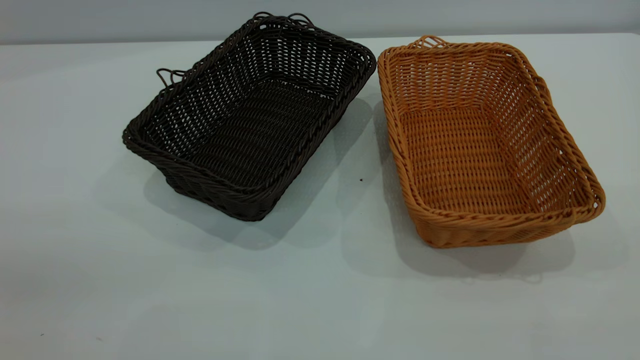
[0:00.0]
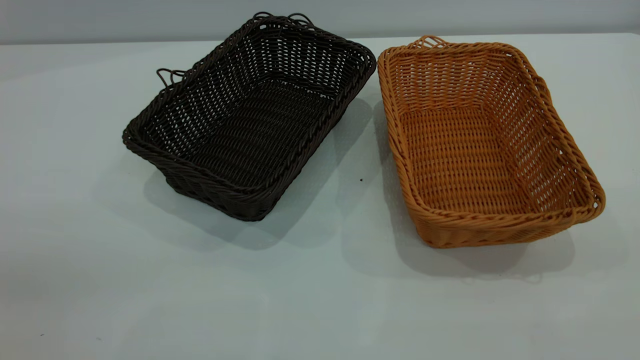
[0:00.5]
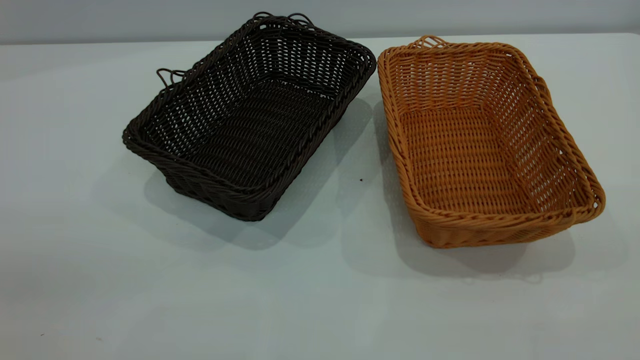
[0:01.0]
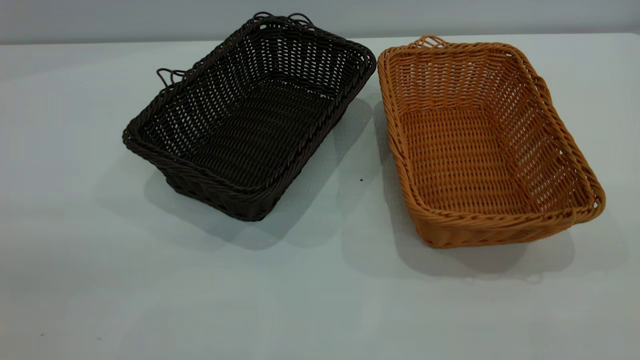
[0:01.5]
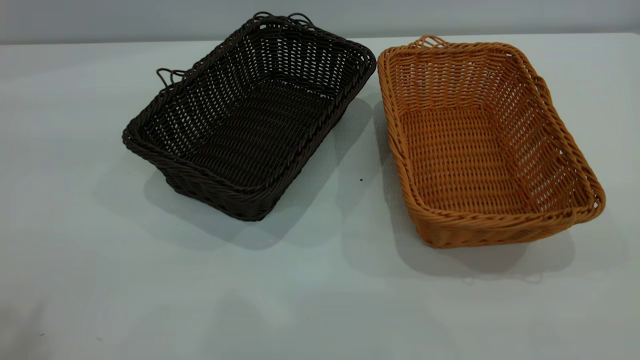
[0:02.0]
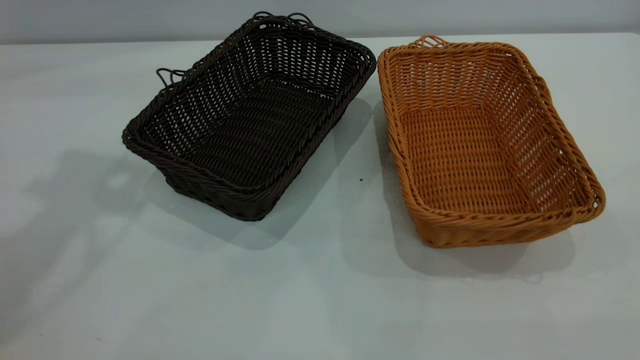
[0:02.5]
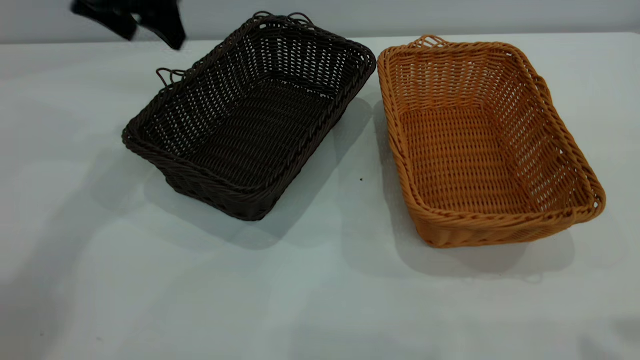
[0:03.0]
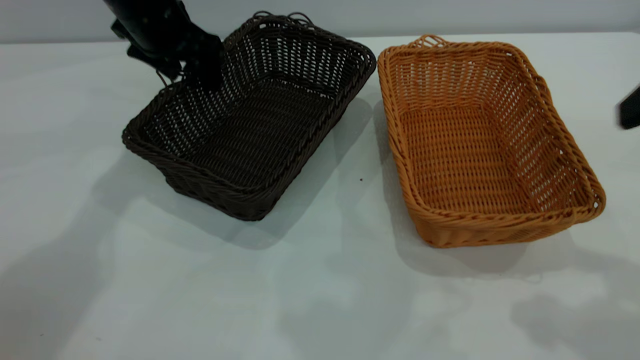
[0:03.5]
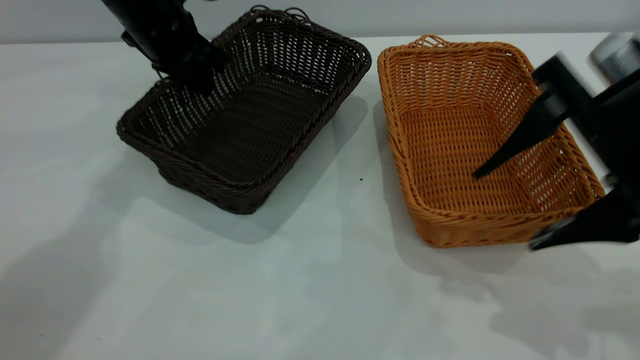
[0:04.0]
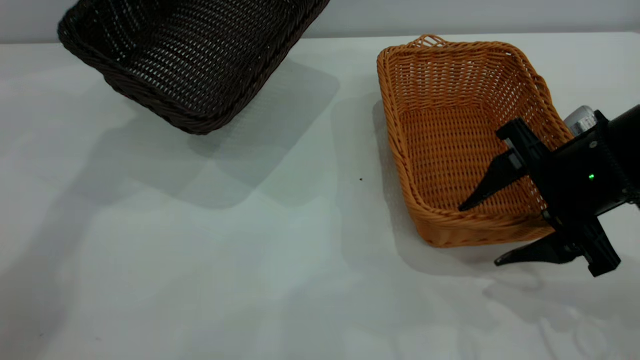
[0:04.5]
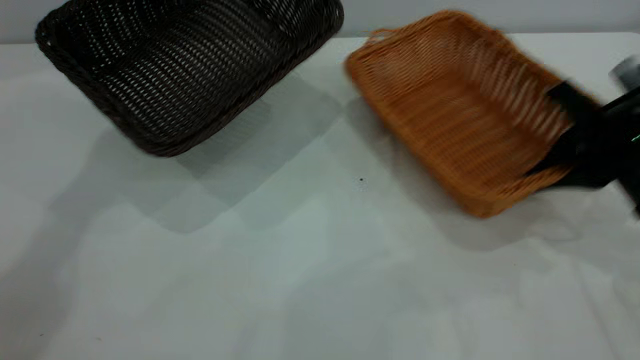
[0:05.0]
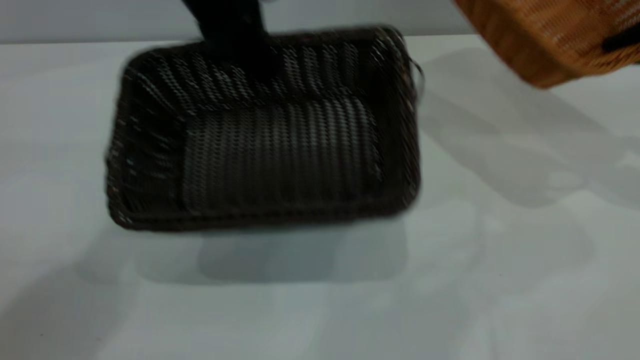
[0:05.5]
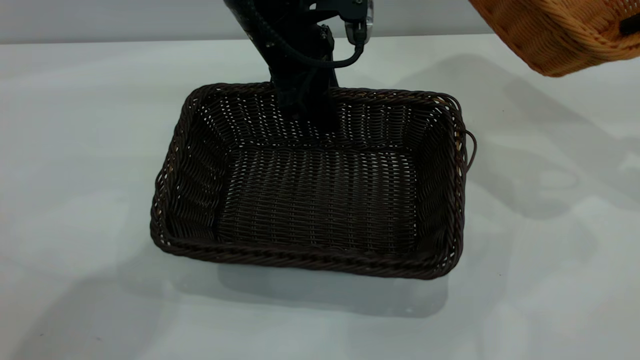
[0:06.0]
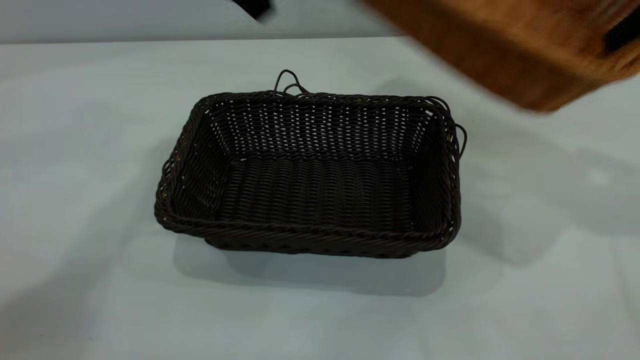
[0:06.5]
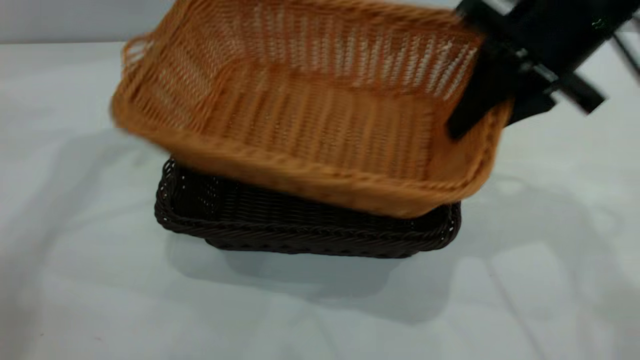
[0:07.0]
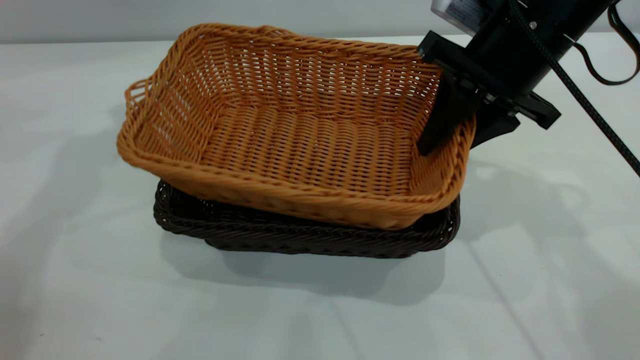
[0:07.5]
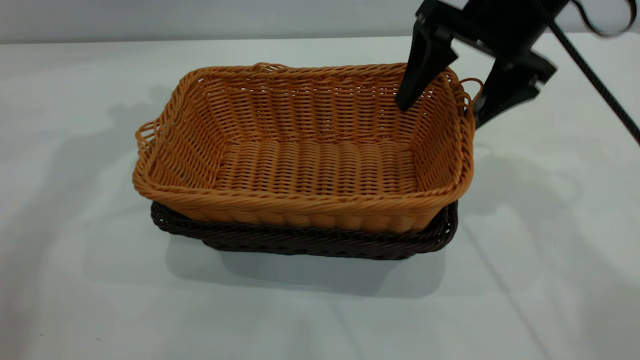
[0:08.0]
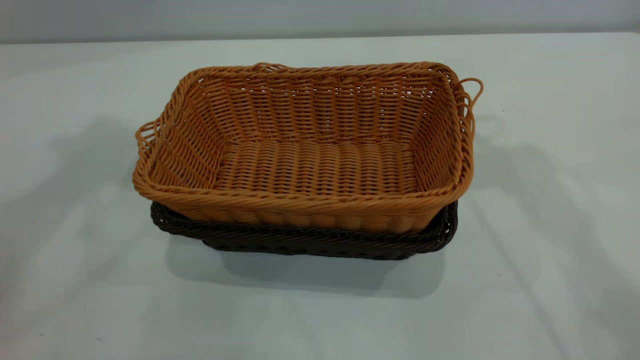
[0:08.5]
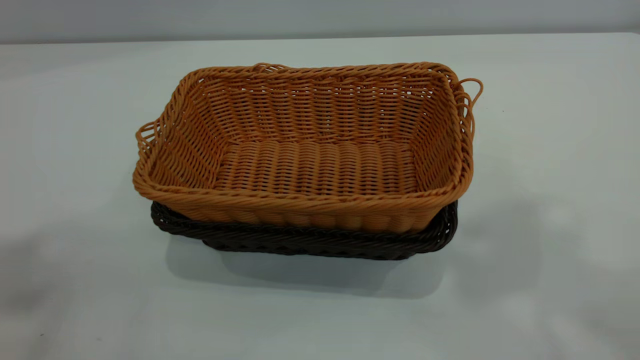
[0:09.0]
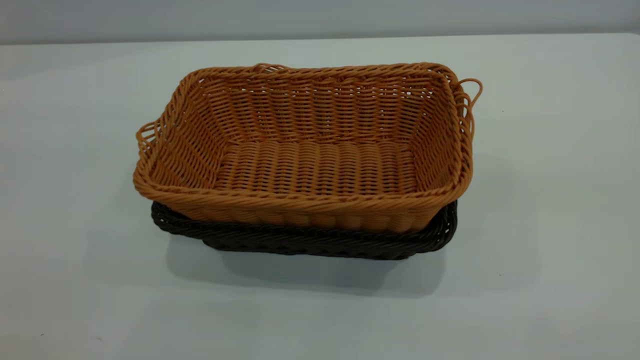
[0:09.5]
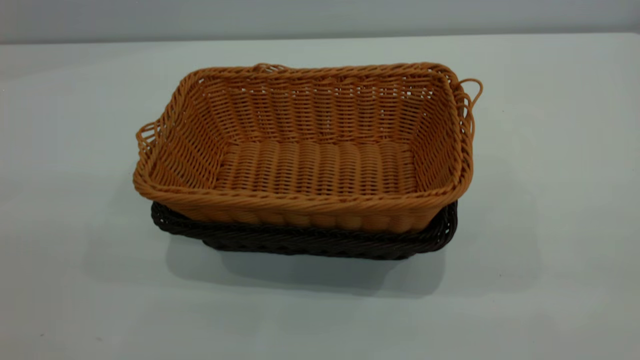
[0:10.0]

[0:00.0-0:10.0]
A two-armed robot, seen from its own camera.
Task of the whole recording: the left gripper grasp the black basket and place it in the center of the table, the right gripper grasp the brown basket and place it inside the black one.
Step, 0:00.0 to 0:05.0: Pick up the light basket with the right gripper.
Step, 0:05.5 to 0:06.0: Move the dark basket to the center of view.
Step, 0:06.5 to 0:08.0: Place the light basket on the dark basket.
0:02.0 to 0:04.0: The grippers both shift forward and downward by some 35 cm. The left gripper closes its fingers.
0:04.0 to 0:06.0: The right gripper heads to the right and forward, covering approximately 20 cm, and closes. Meanwhile the left gripper goes approximately 15 cm to the right and backward, and opens.
0:06.0 to 0:08.0: The left gripper travels to the left and upward by approximately 25 cm. The right gripper shifts some 20 cm to the left, and opens its fingers.
0:08.0 to 0:10.0: The right gripper goes about 40 cm backward and upward. The left gripper is displaced backward by about 50 cm.

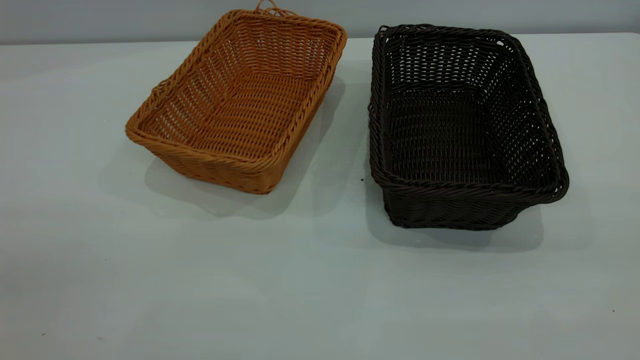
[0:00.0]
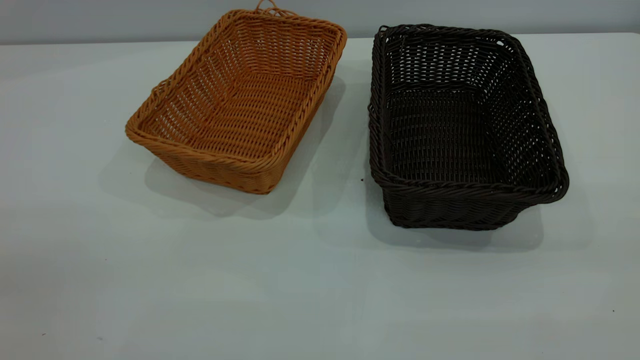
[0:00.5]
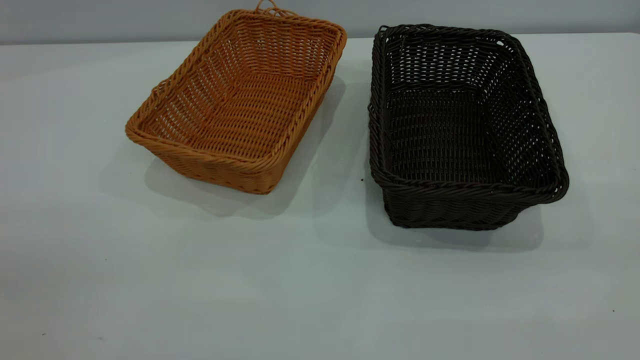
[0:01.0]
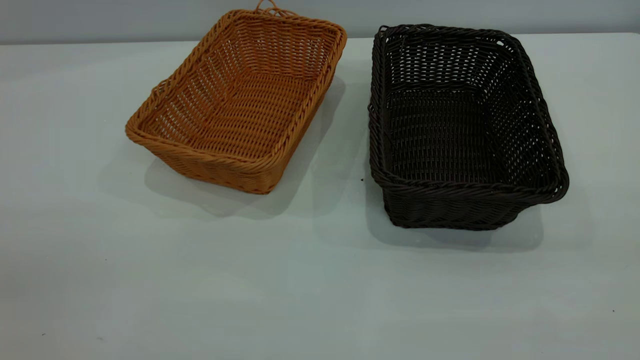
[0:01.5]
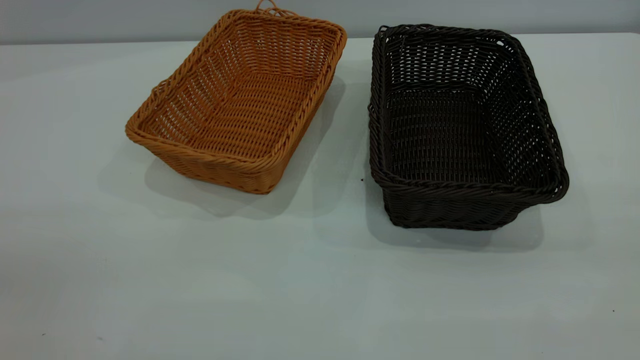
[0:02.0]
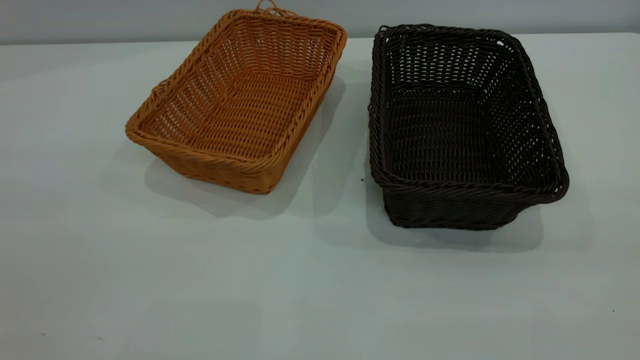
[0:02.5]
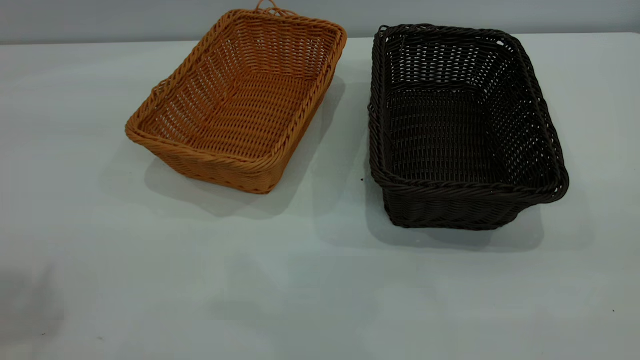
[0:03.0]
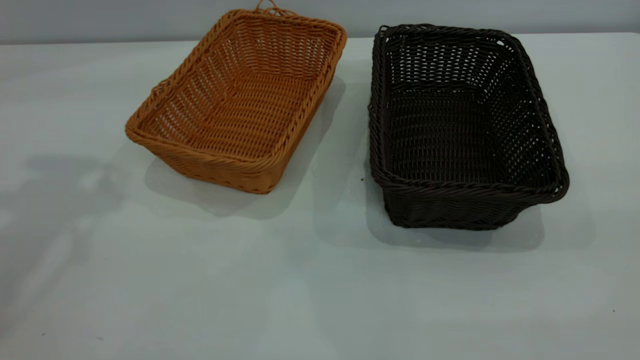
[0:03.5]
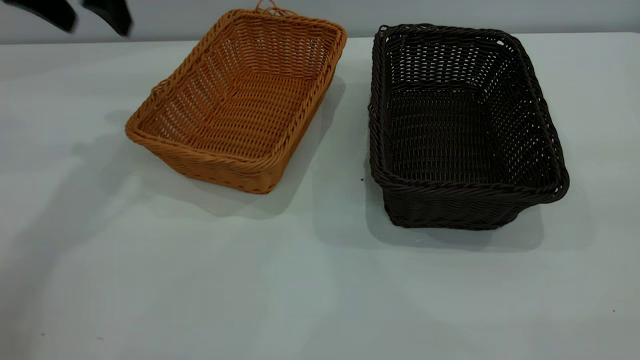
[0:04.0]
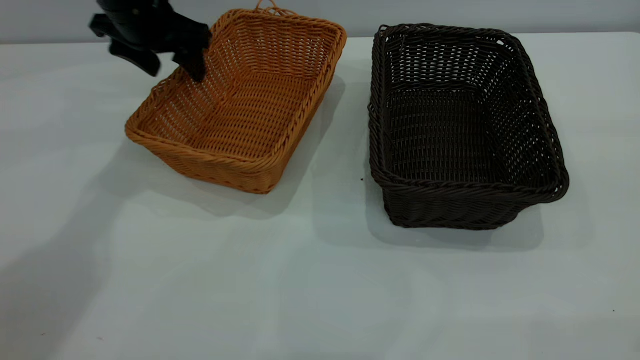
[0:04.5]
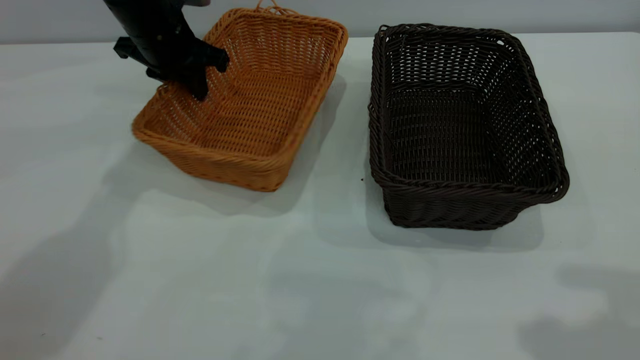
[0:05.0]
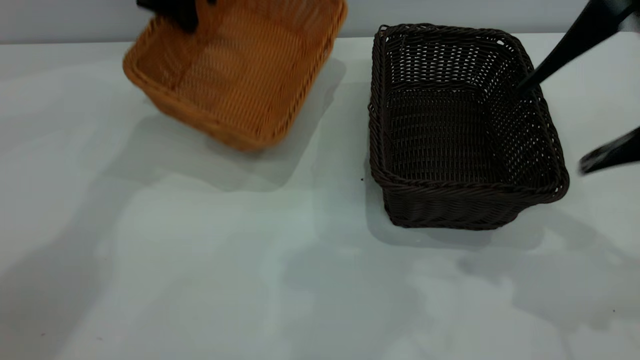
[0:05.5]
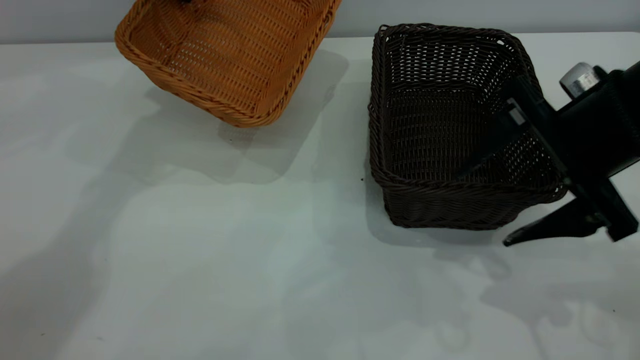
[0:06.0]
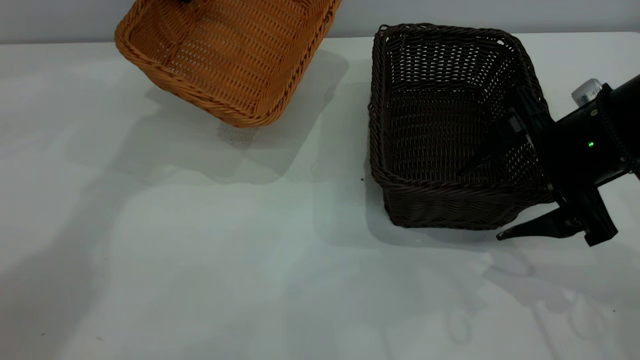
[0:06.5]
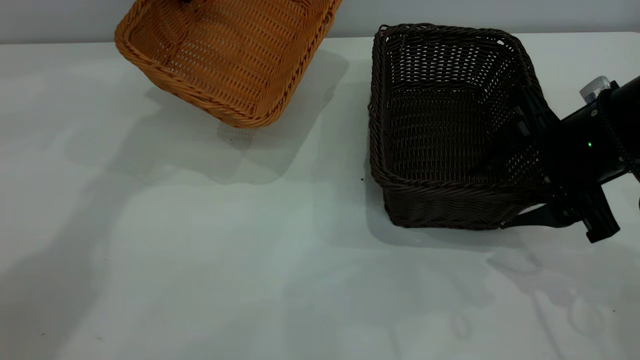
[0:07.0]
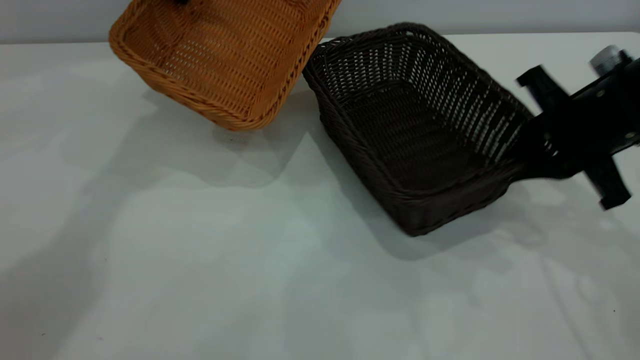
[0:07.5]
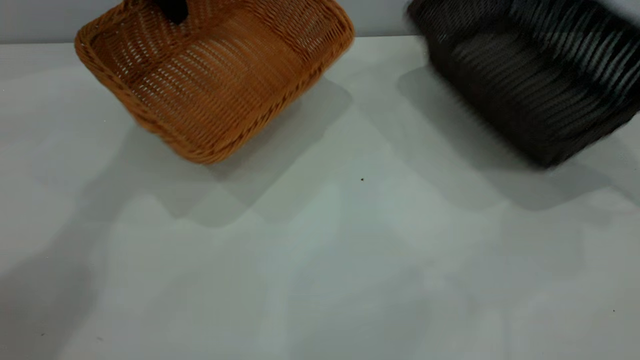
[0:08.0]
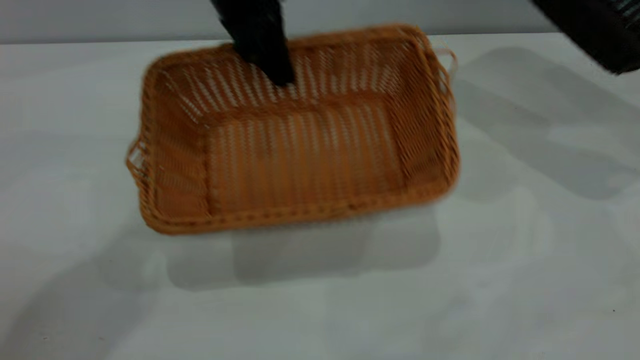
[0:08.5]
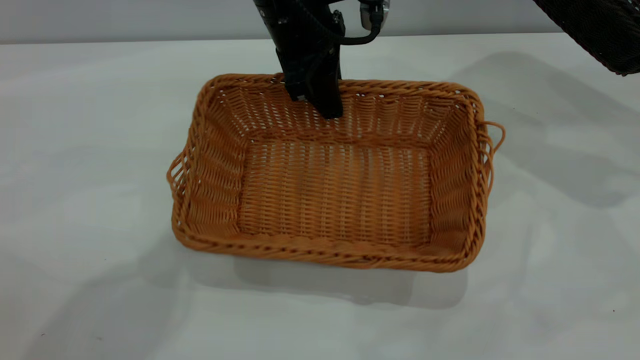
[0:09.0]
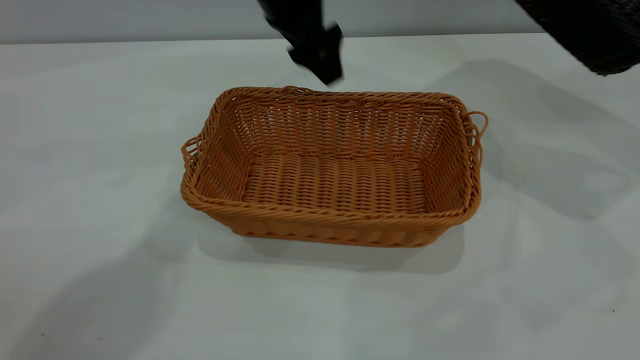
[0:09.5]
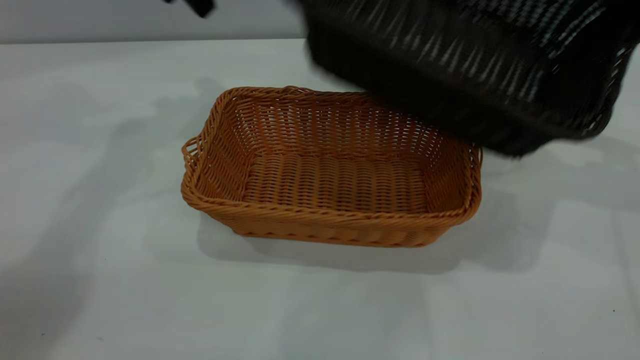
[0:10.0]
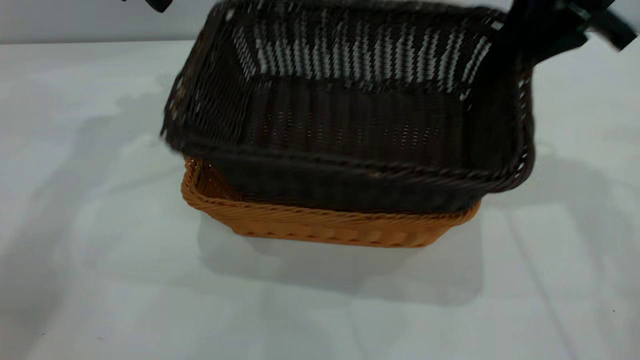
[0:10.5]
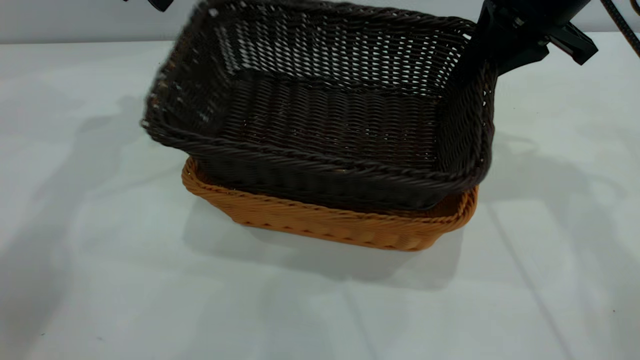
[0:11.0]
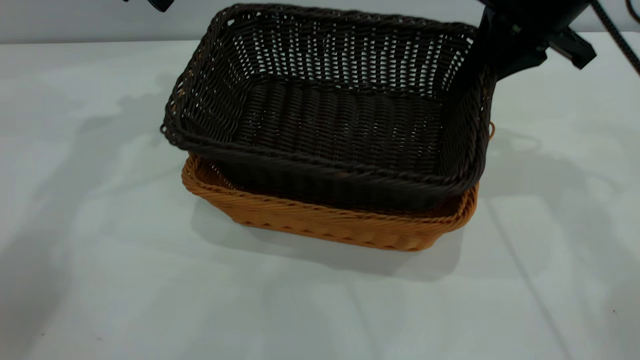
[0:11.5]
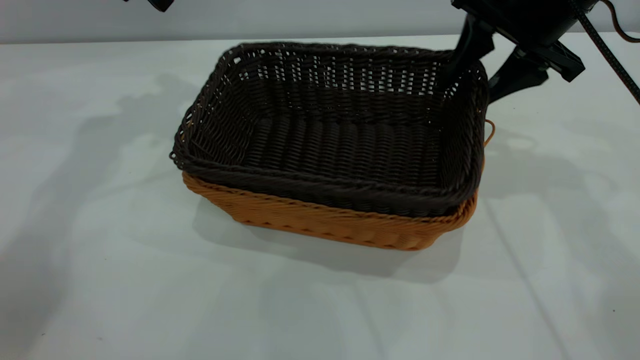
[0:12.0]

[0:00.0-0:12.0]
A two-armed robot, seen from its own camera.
Task of the whole recording: the left gripper grasp the brown basket and place it in the center of the table, the right gripper grasp the black basket and place it inside the brown one.
Step, 0:00.0 to 0:05.5: Pick up the light basket with the right gripper.
Step, 0:06.0 to 0:09.5: Place the light-colored basket in the center.
0:00.0 to 0:02.0: Neither gripper changes place.
0:02.0 to 0:04.0: The left gripper goes about 40 cm forward.
0:04.0 to 0:06.0: The right gripper goes some 30 cm downward and forward. The left gripper moves forward and to the right, approximately 10 cm, reaches about 10 cm downward, then returns, and closes.
0:06.0 to 0:08.0: The right gripper shifts roughly 20 cm to the right and forward, and closes.
0:08.0 to 0:10.0: The left gripper goes to the right and returns, about 15 cm each way, and opens, while the right gripper heads to the left and upward, covering approximately 10 cm.
0:10.0 to 0:12.0: The right gripper travels to the left by about 10 cm, and opens up.
